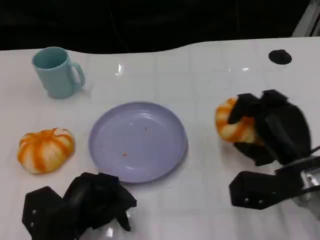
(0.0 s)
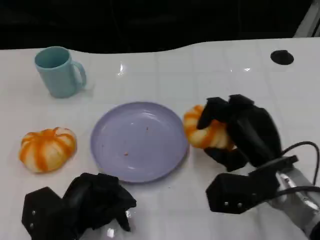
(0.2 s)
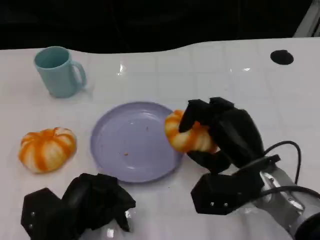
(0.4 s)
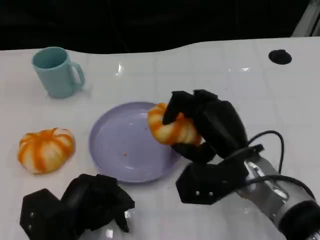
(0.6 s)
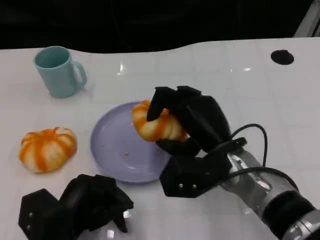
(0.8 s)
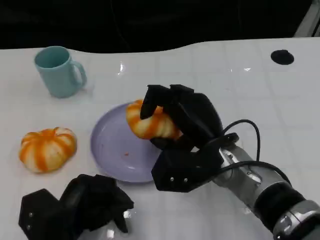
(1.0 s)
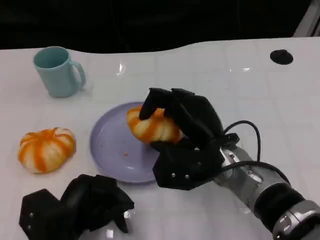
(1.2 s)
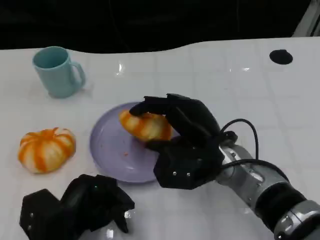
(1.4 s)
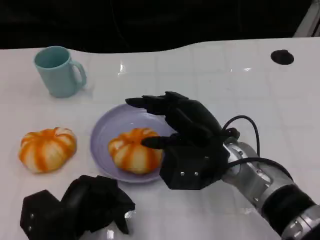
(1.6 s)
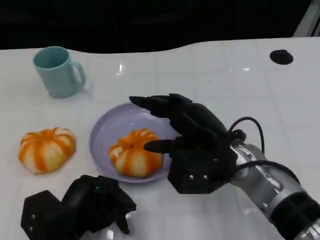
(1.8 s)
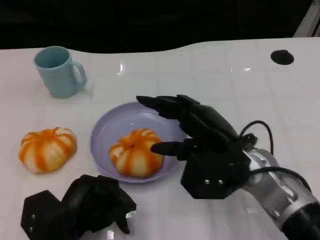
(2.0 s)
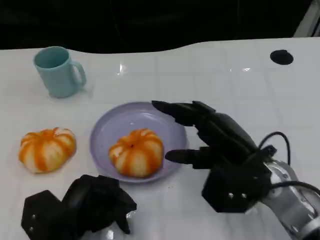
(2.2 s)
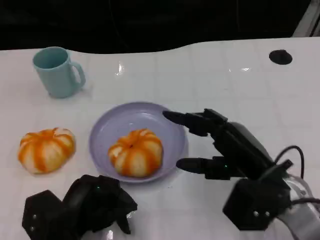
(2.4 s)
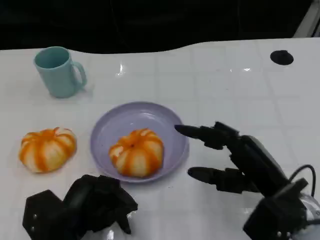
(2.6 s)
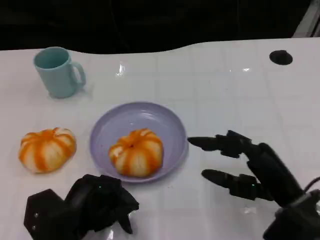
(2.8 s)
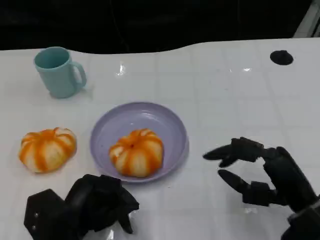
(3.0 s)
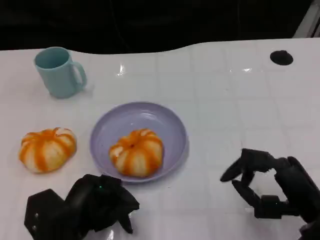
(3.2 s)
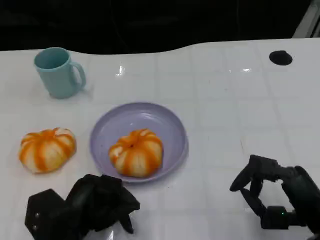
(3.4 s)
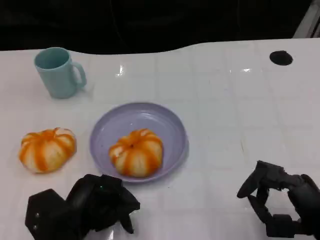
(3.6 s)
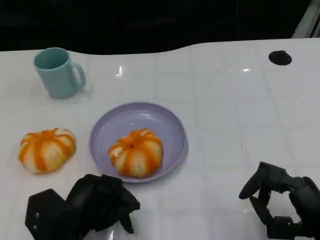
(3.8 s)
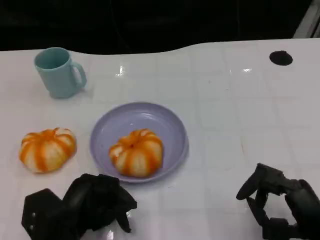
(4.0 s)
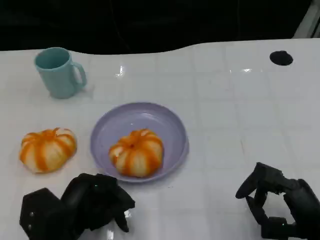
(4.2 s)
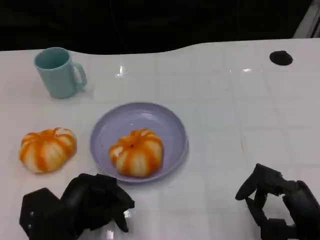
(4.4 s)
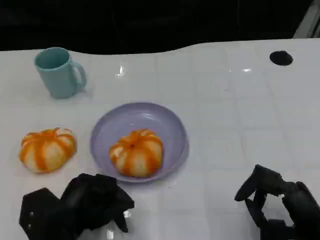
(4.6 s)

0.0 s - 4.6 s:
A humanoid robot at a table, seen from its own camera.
Task of the whole recording: Grasp the bread from the table and place it into the plate.
0.0 s - 1.6 s: The right hand heads to the left, covering some 10 cm.
1.6 s - 3.0 s: The right hand travels to the right and backward by roughly 15 cm.
3.0 s - 4.6 s: The right hand changes place by about 5 cm.

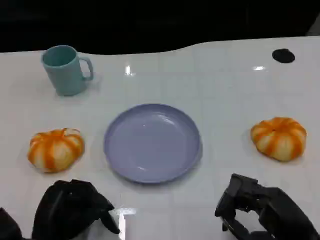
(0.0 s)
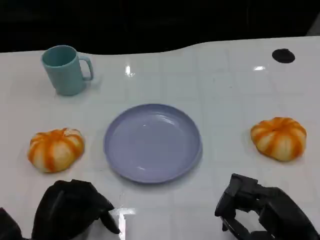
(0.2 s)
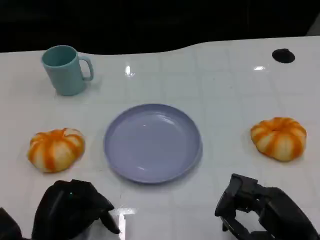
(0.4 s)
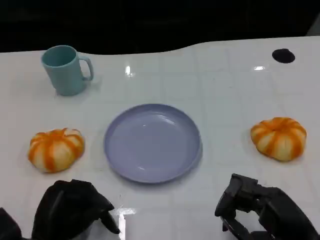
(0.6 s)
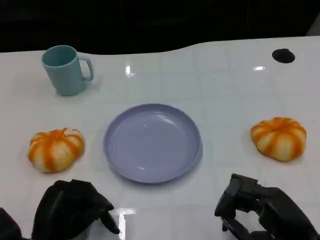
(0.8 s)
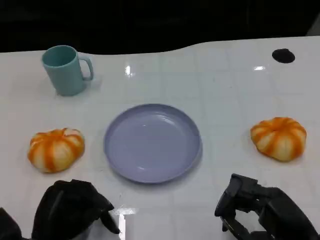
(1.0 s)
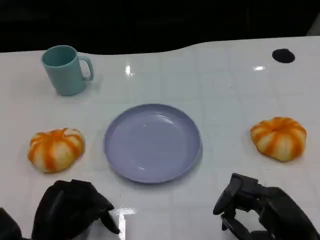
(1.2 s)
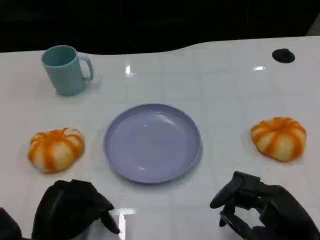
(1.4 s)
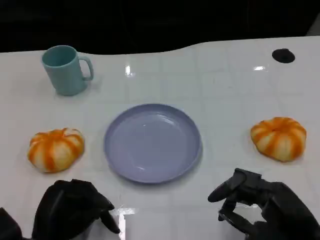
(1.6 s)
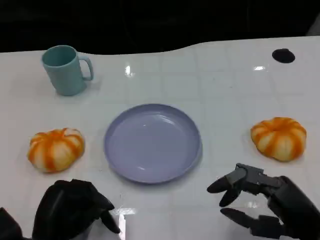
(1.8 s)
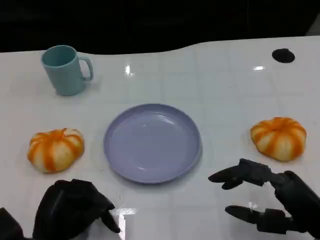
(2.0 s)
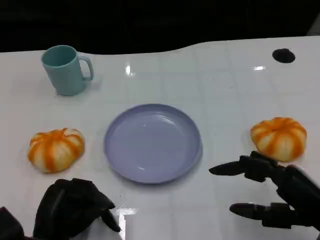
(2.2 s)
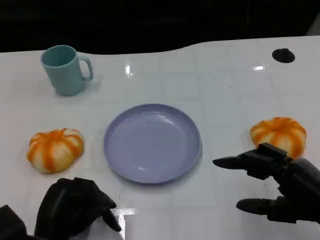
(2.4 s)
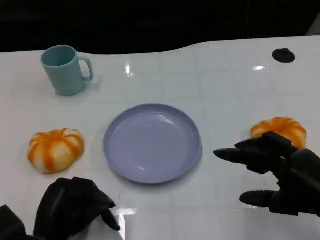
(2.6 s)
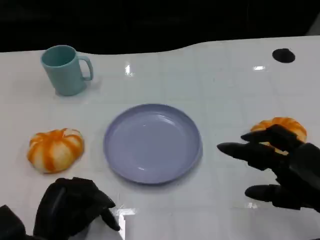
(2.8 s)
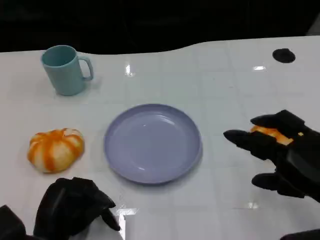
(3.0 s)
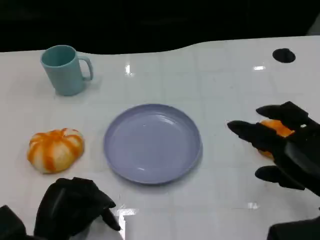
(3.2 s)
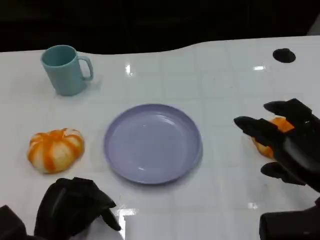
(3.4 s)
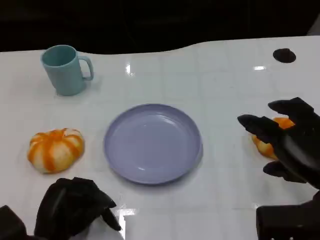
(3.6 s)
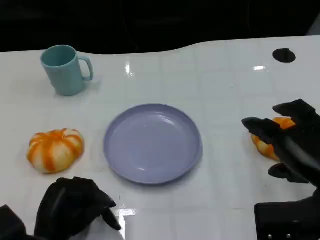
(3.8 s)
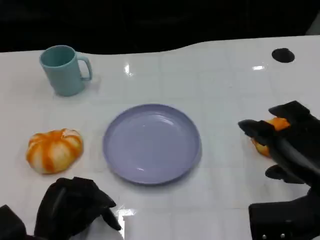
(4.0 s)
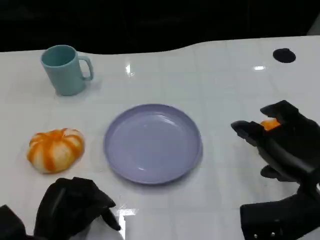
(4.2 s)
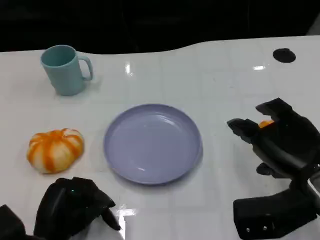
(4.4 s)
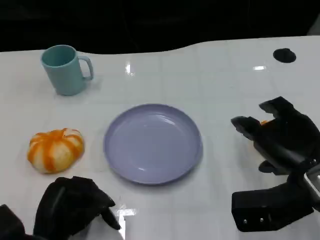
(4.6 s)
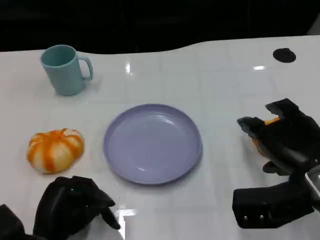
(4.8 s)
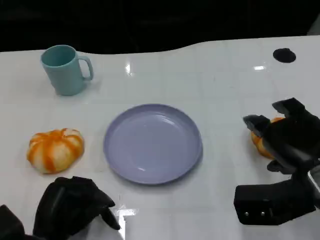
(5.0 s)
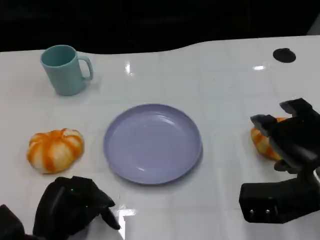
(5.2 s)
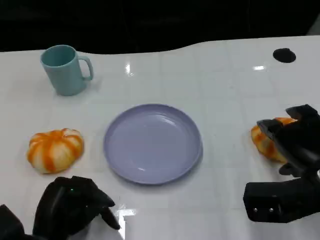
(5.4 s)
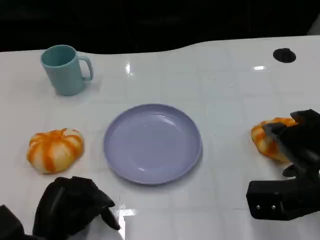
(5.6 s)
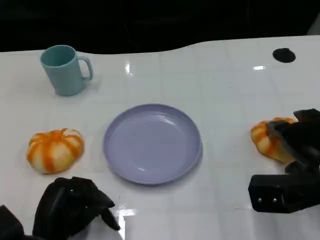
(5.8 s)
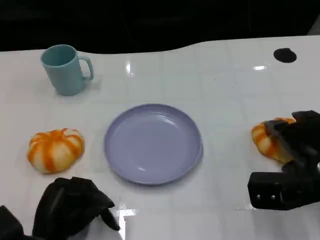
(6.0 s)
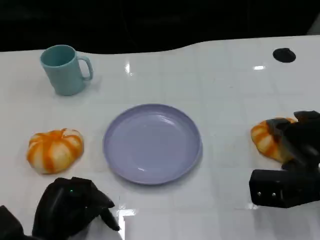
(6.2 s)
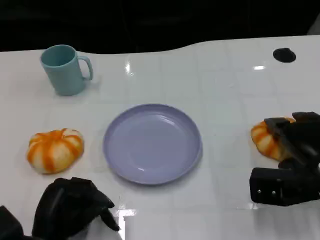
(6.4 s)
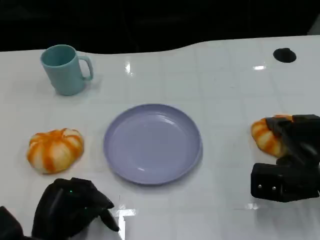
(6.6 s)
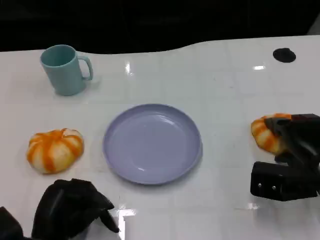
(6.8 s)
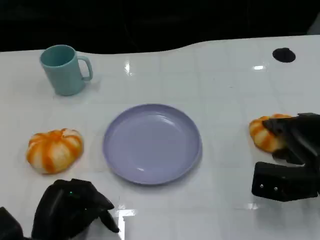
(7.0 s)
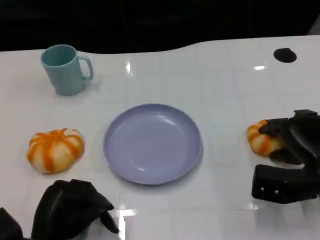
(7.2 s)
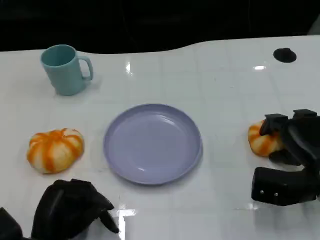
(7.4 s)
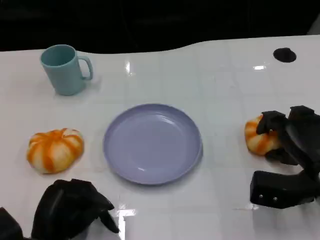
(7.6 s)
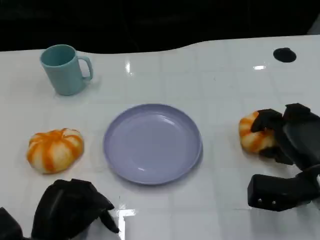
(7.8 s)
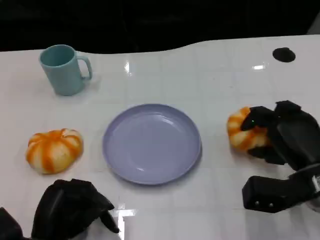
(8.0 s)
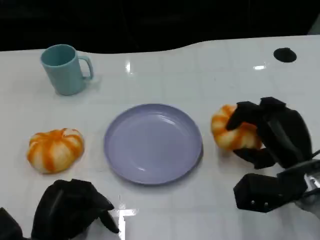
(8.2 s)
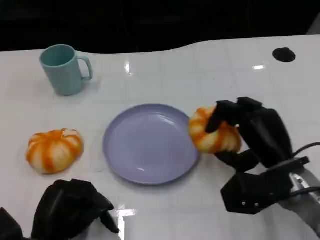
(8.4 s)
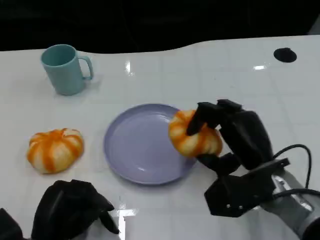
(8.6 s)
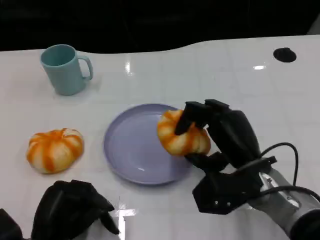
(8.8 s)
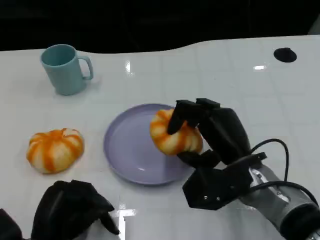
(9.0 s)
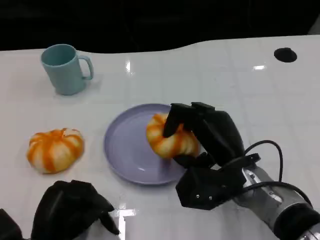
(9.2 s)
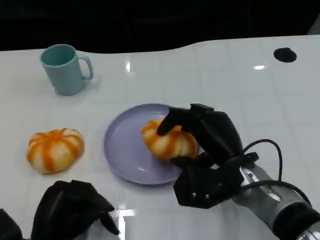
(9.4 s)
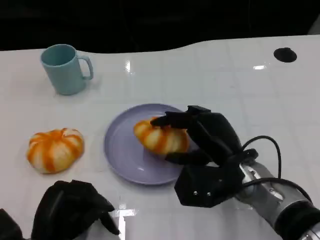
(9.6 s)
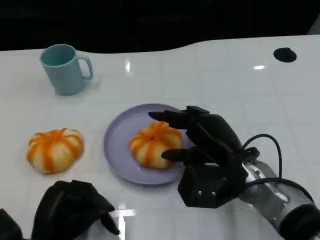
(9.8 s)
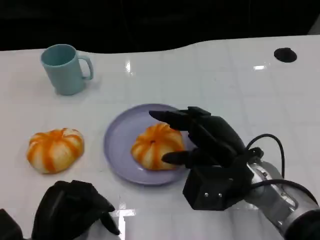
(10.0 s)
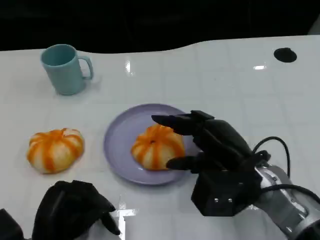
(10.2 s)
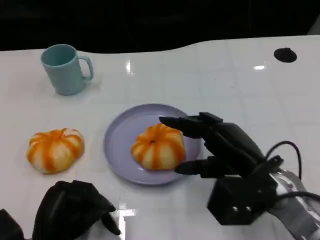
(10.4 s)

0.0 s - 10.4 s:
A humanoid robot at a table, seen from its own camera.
Task of the whole recording: Grasp the bread from the table and place it into the plate.
0.0 s - 1.4 s: The two hands keep their place.
1.4 s - 3.0 s: The right hand is displaced upward by some 5 cm.
3.0 s - 4.4 s: The right hand ends up approximately 5 cm from where it was.
4.4 s - 6.0 s: The right hand moves about 5 cm.
7.4 s - 9.0 s: The right hand goes some 10 cm to the left.
9.0 s - 10.4 s: There are only small adjustments of the hands.

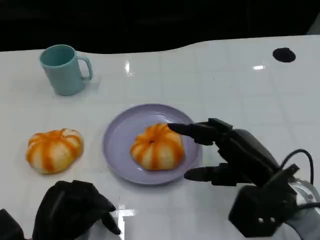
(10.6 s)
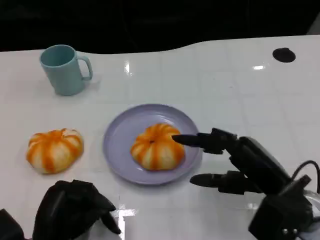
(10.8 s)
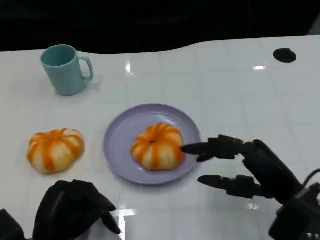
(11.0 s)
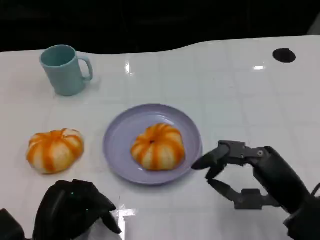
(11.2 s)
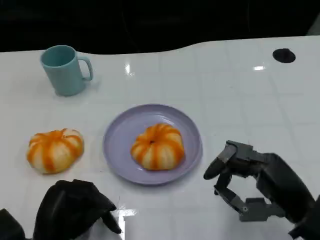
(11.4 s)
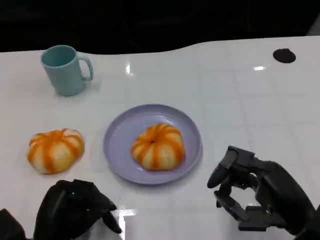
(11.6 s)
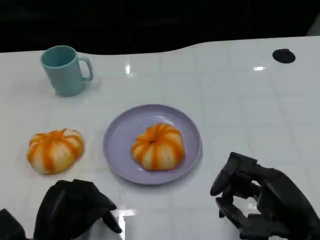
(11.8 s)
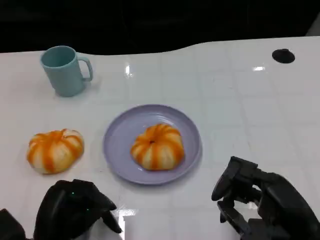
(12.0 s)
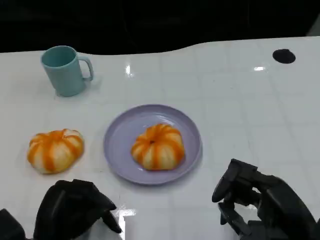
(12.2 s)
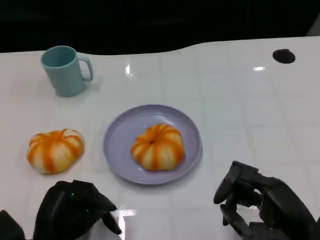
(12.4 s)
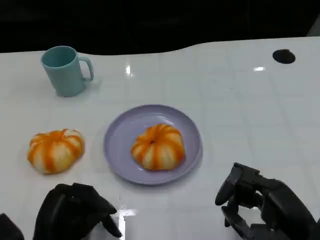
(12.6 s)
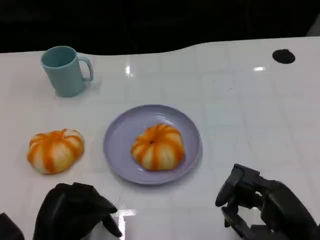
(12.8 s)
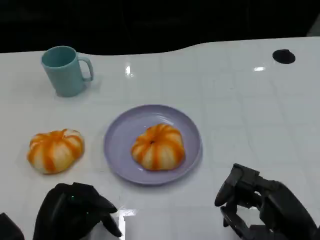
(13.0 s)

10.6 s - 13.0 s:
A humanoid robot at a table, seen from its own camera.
Task of the whole recording: Grasp the bread from the table and place it into the plate.
10.6 s - 11.8 s: The right hand heads backward, covering approximately 10 cm.
11.8 s - 13.0 s: The hands make only small movements.

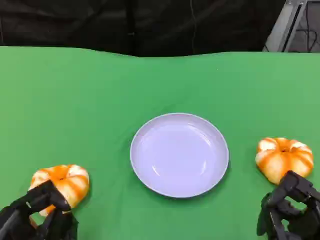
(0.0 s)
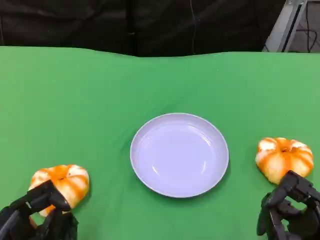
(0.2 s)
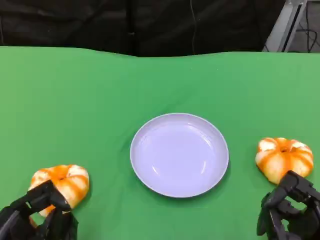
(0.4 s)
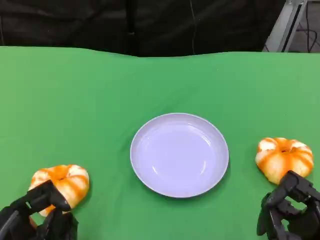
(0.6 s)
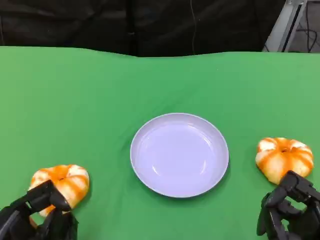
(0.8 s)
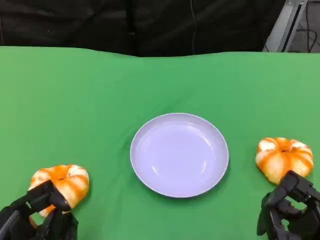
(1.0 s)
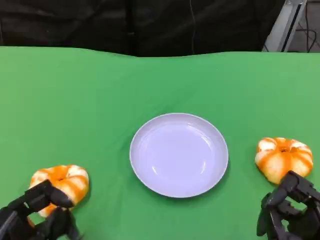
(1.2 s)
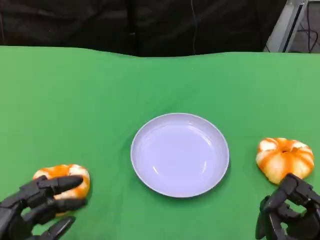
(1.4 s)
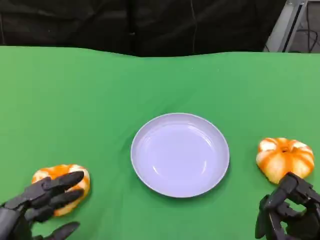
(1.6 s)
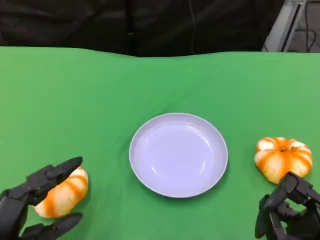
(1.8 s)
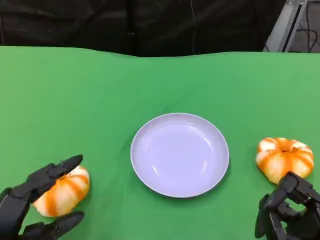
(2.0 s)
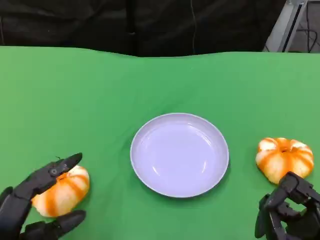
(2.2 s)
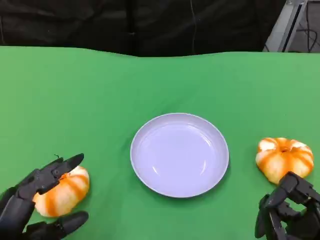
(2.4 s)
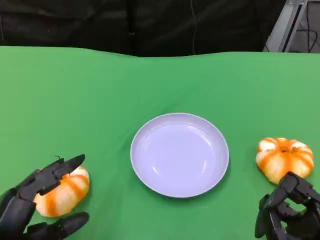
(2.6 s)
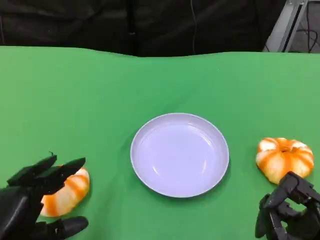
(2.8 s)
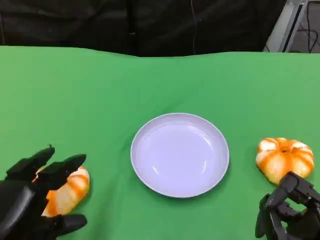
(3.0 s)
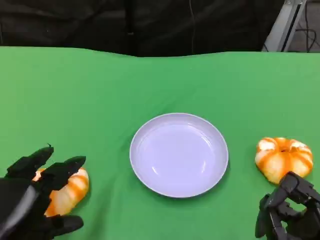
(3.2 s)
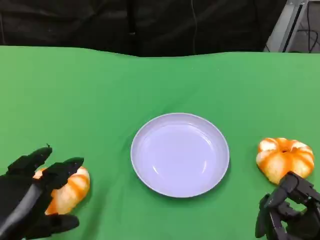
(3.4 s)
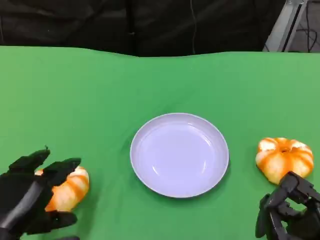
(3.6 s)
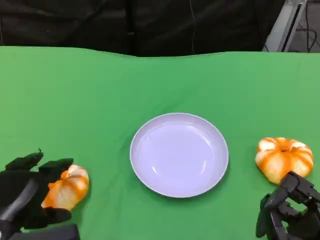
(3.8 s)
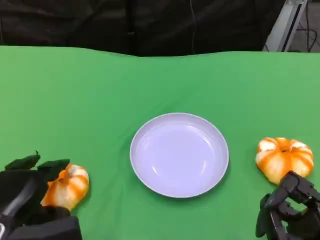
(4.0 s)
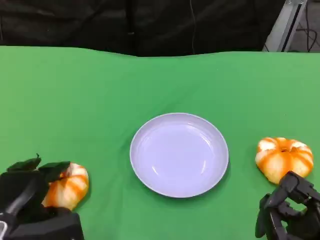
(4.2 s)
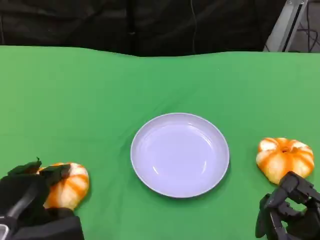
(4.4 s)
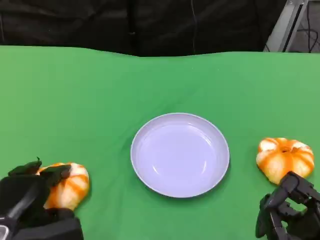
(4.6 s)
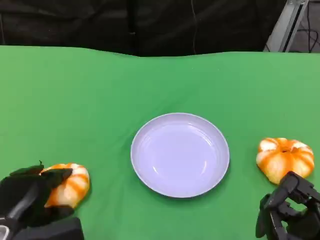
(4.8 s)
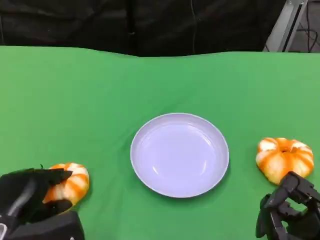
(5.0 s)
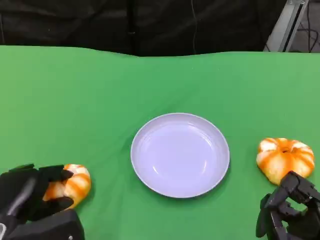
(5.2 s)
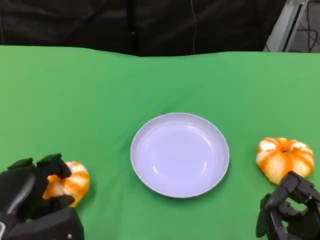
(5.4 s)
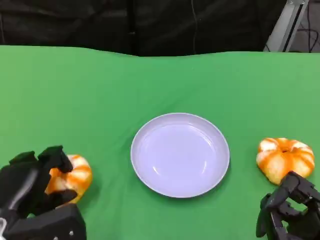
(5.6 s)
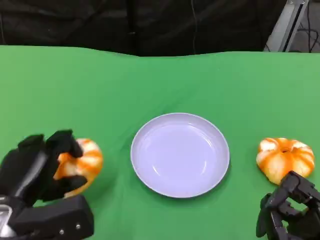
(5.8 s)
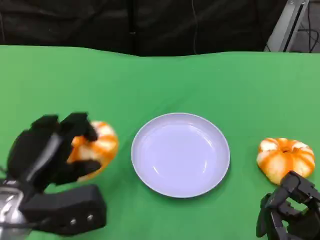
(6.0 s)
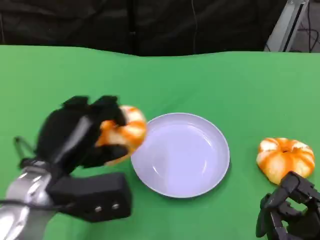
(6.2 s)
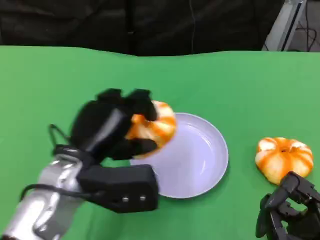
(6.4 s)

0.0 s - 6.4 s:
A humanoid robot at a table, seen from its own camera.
Task of the whole recording: Grasp the bread from the table and place it into the plate.
3.2 s - 4.8 s: The left hand shifts some 5 cm downward.
4.8 s - 6.4 s: The left hand travels to the right, upward and forward by about 15 cm.
